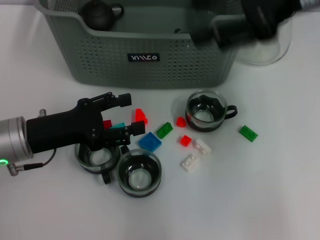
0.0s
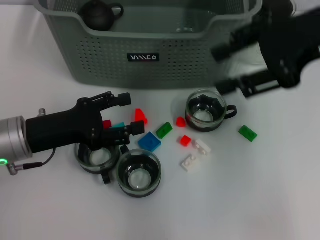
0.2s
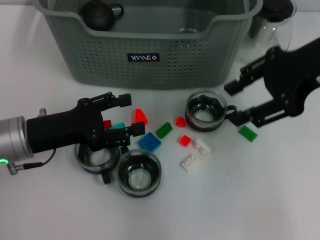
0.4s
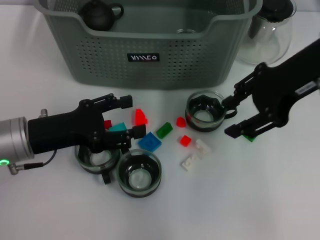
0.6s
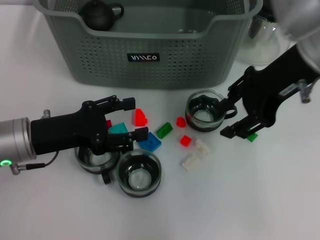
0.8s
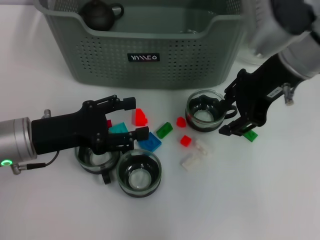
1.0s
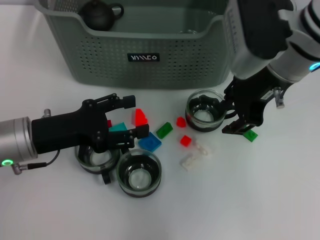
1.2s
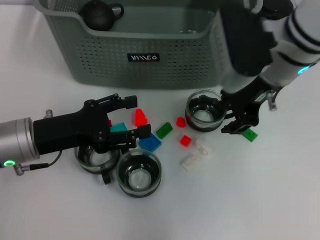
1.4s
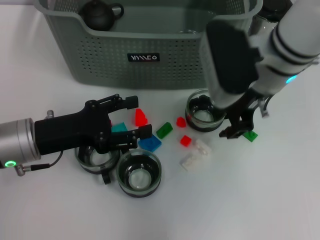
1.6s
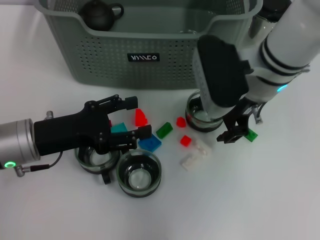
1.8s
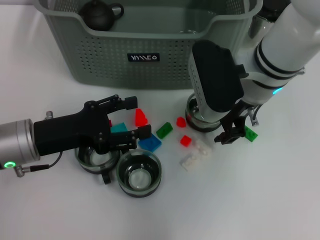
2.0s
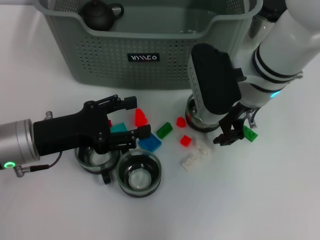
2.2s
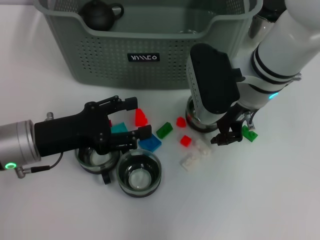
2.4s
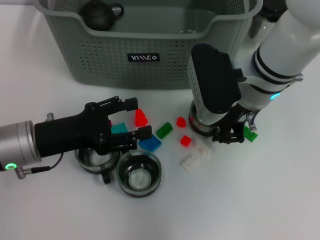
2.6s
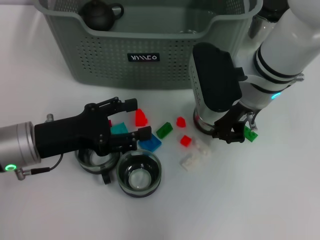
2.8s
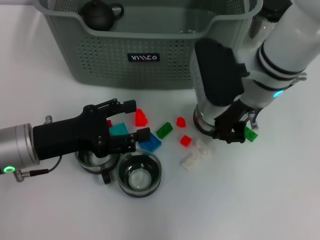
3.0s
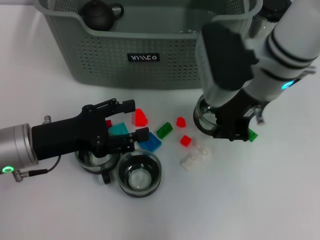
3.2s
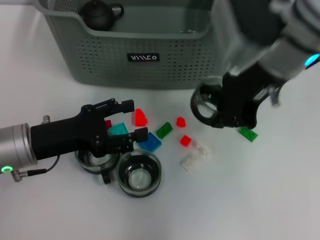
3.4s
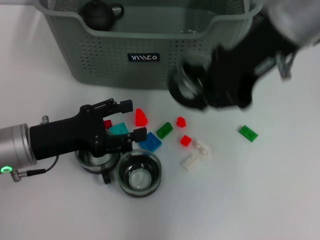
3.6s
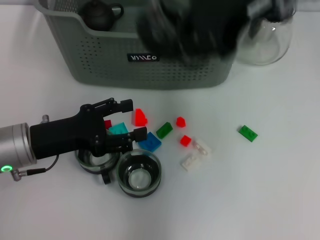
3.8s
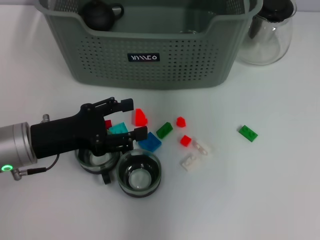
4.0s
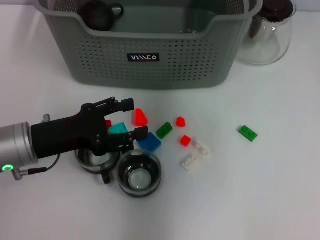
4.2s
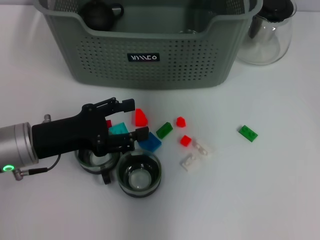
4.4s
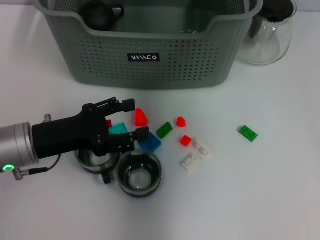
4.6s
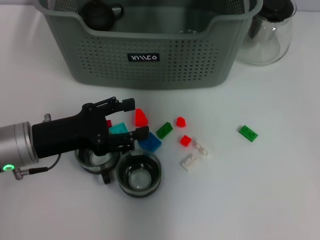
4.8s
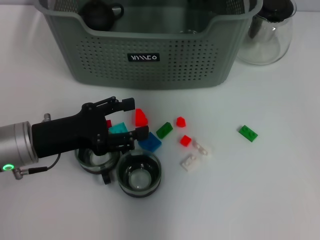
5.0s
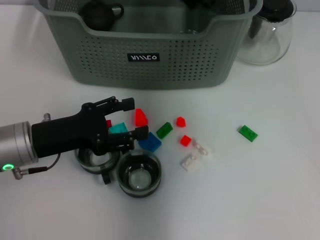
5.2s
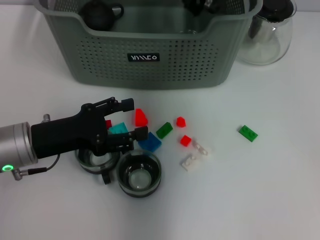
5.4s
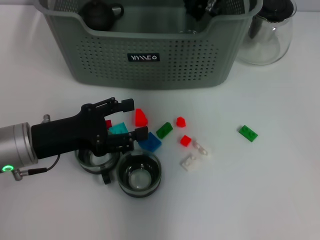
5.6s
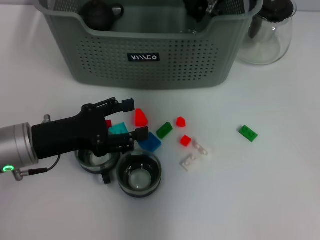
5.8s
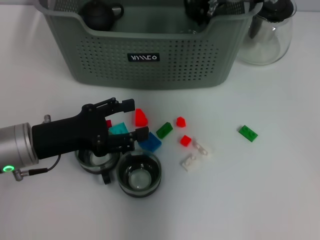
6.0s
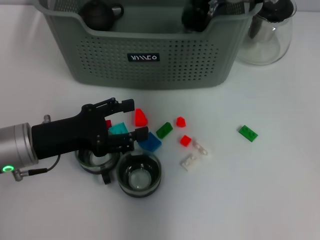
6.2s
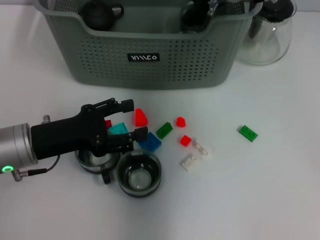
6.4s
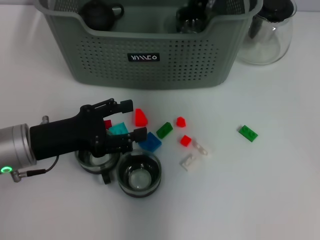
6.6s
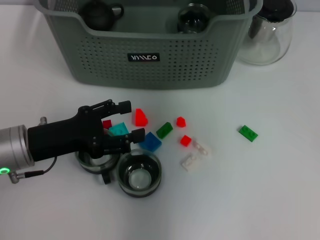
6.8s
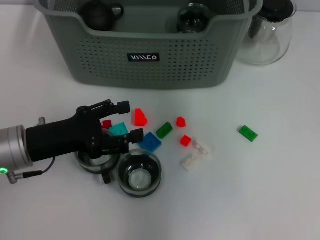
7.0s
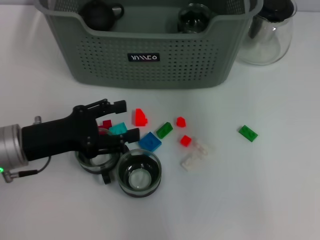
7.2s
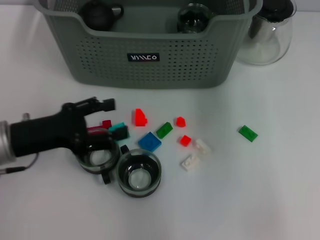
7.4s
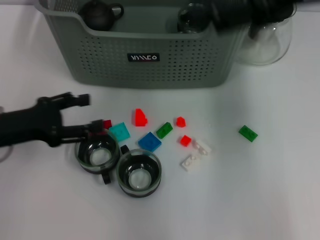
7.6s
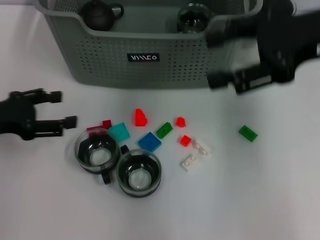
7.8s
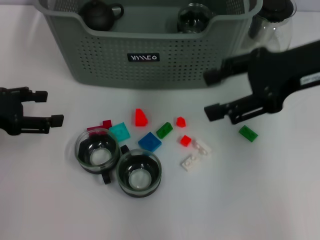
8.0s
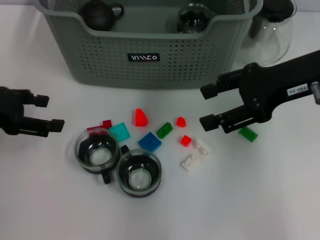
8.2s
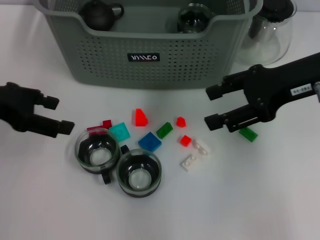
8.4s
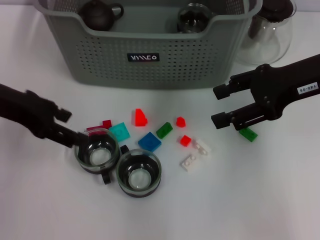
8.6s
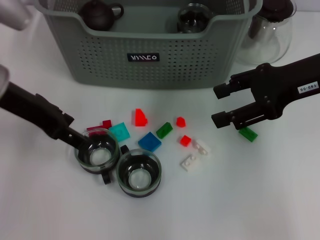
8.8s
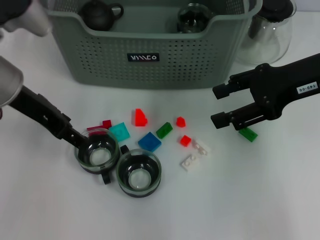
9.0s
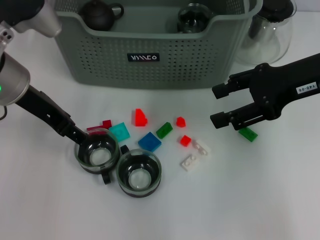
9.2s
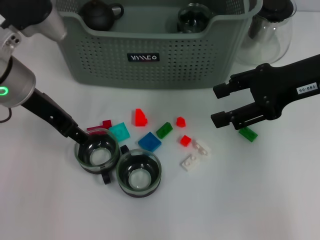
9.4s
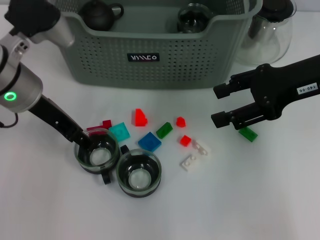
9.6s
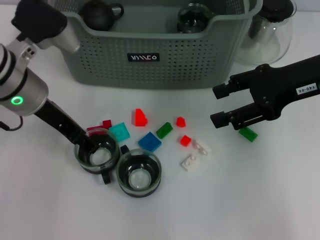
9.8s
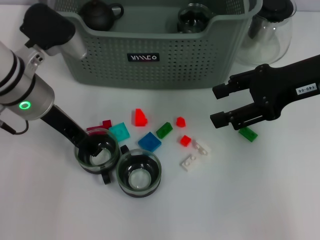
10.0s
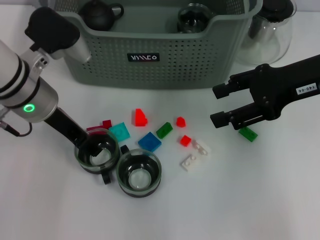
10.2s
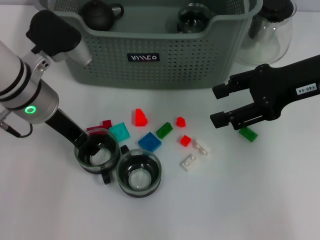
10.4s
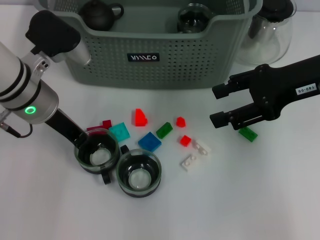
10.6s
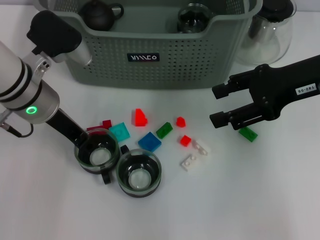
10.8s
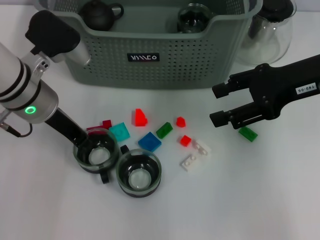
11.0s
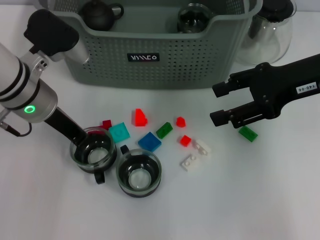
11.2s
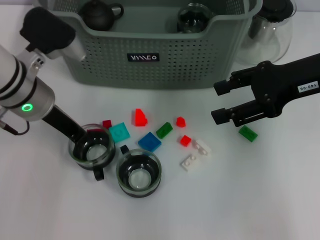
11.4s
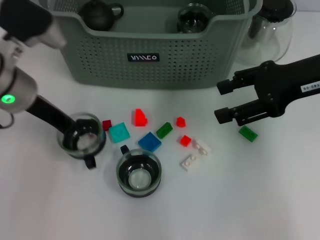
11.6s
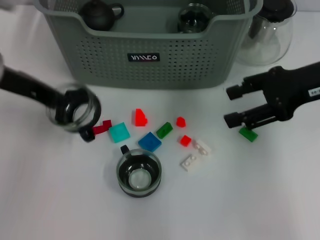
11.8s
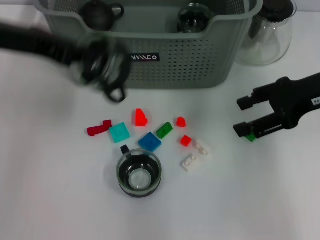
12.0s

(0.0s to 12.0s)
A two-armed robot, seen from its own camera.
Task of the whole recording: pick up the teacup on the table and place it into the storage bin, pick up the block on the table and place it into the storage bin.
Step, 0.0s - 2.6s: Grasp the cup with right gripper.
Step, 3.0s - 6.4s: Place the cup in the storage box with right gripper.
Step, 6.6s - 11.2s: Grasp the cup with left gripper.
0.0s - 1.6s: The right gripper heads downward and to the left, covering about 15 cm.
1.6s - 3.0s: The right gripper closes up.
3.0s - 4.4s: The right gripper moves upward and forward, roughly 20 cm.
6.0s - 7.6s: The right gripper travels backward, to the right and upward by some 20 cm, and opens its fingers. Meanwhile the left gripper heads to the left, covering approximately 5 cm.
7.6s - 9.0s: The right gripper moves downward, some 10 cm. The left gripper travels upward, to the right and forward by approximately 15 cm.
9.0s - 10.4s: The left gripper is displaced downward by approximately 5 cm.
10.4s - 12.0s: The left gripper travels upward by approximately 10 cm, and closes.

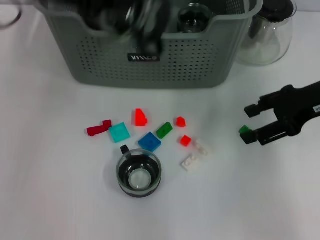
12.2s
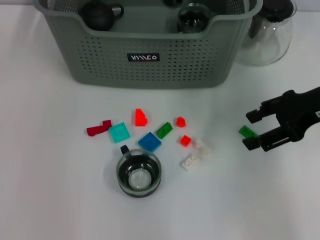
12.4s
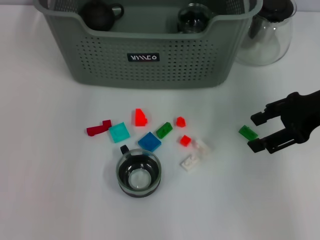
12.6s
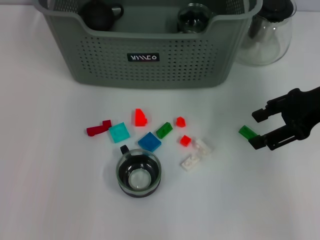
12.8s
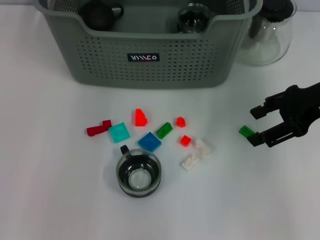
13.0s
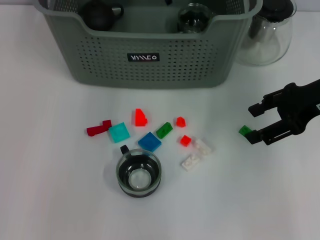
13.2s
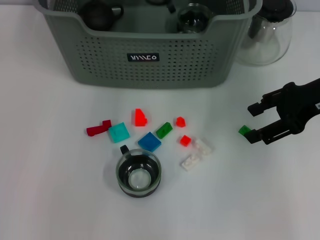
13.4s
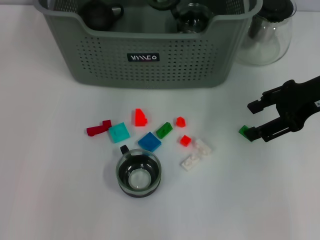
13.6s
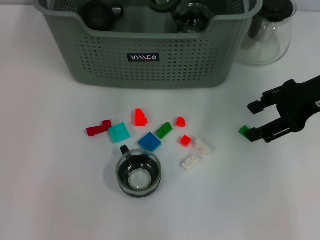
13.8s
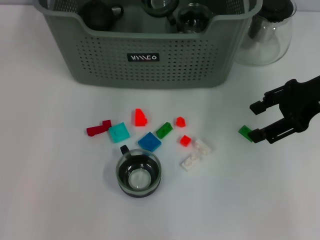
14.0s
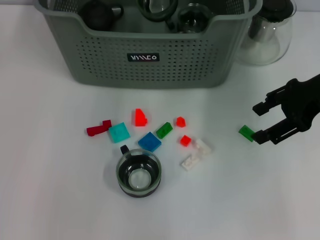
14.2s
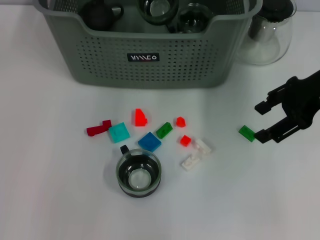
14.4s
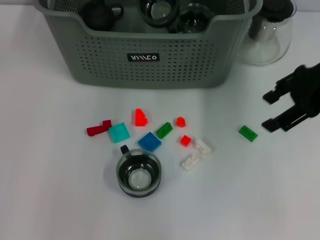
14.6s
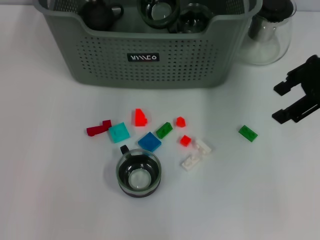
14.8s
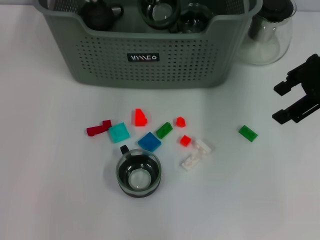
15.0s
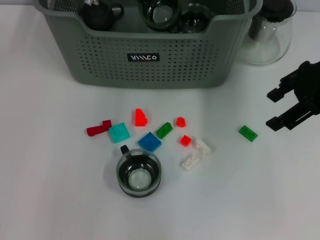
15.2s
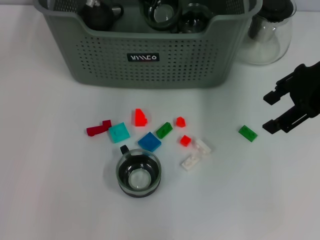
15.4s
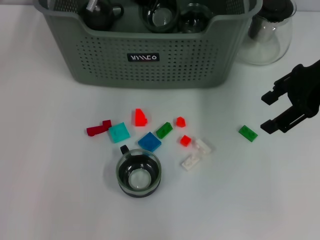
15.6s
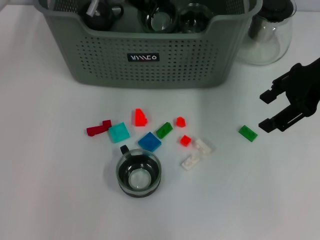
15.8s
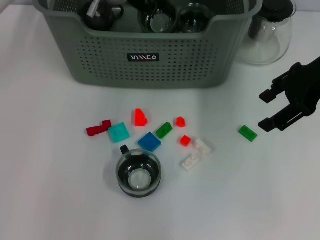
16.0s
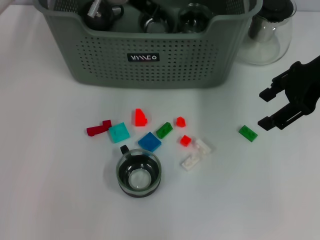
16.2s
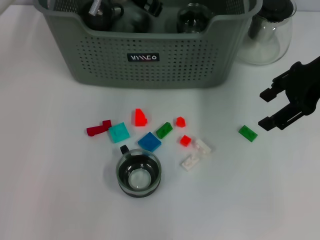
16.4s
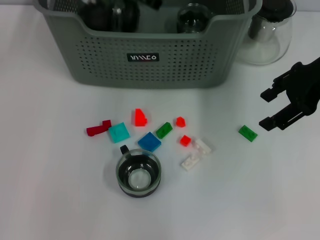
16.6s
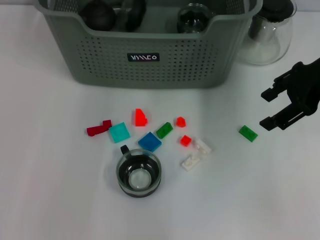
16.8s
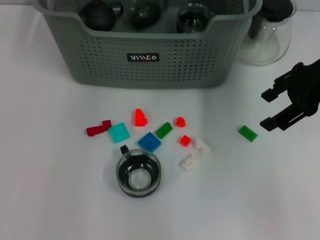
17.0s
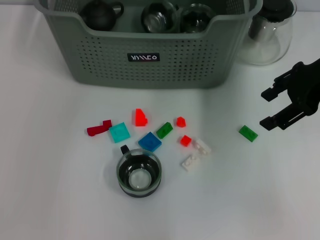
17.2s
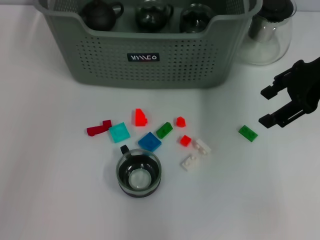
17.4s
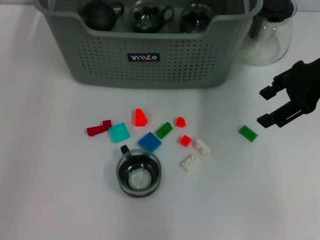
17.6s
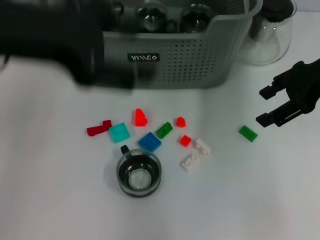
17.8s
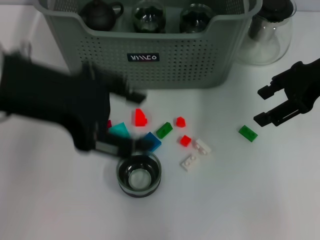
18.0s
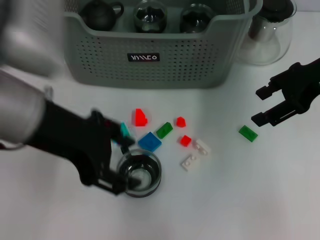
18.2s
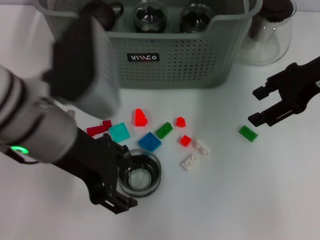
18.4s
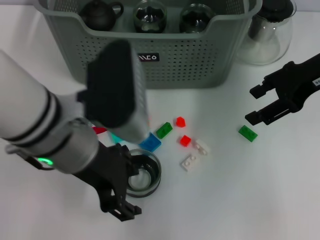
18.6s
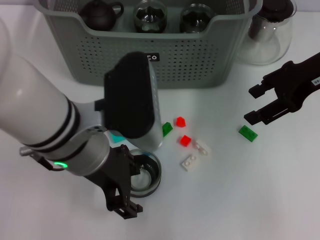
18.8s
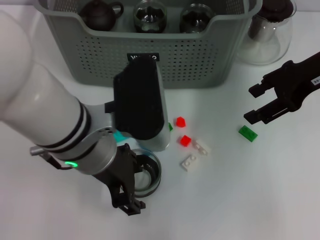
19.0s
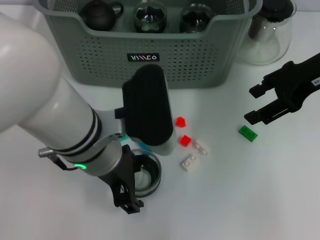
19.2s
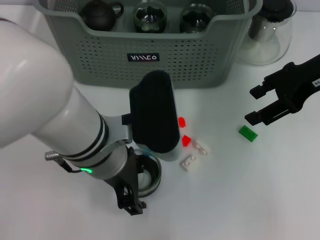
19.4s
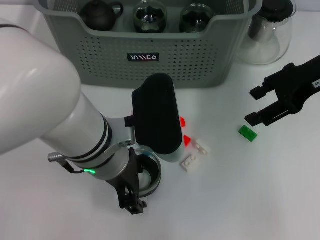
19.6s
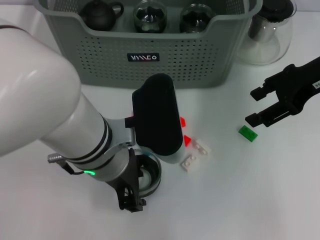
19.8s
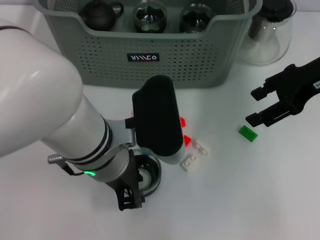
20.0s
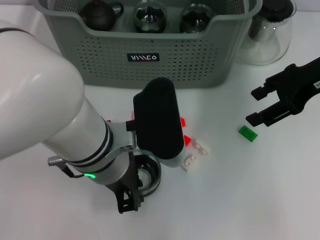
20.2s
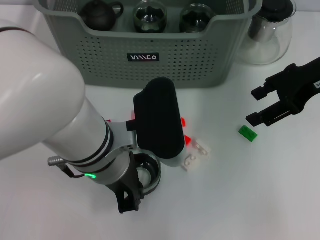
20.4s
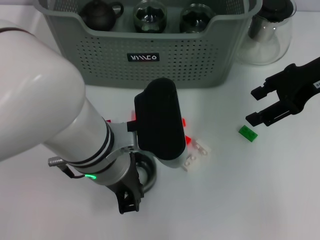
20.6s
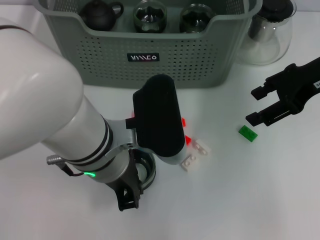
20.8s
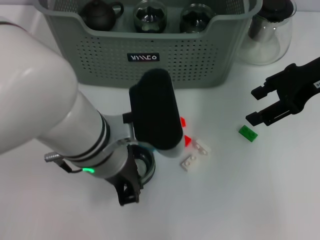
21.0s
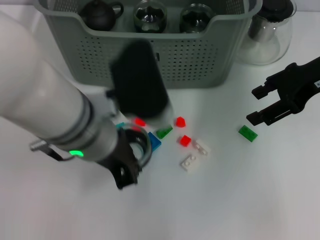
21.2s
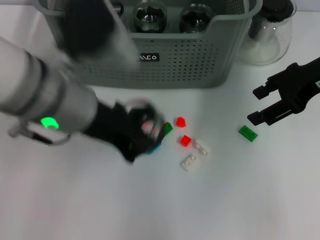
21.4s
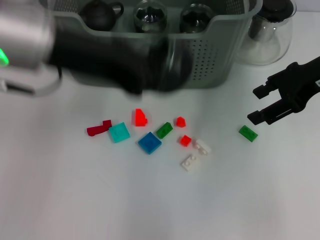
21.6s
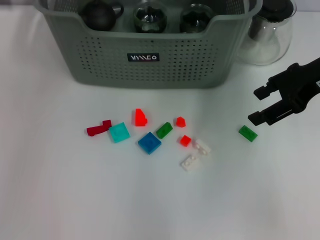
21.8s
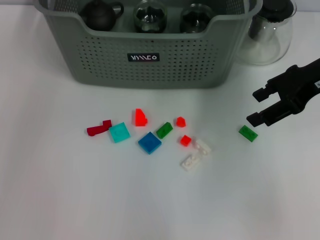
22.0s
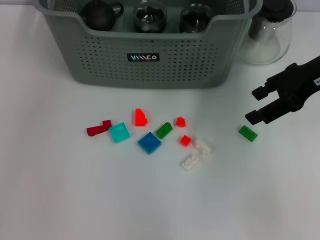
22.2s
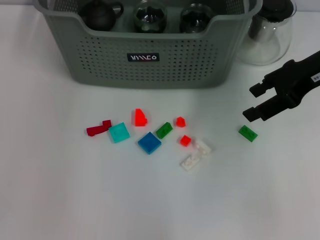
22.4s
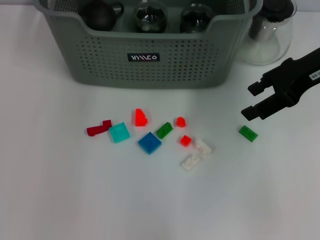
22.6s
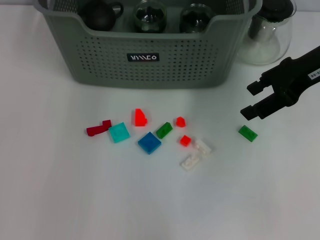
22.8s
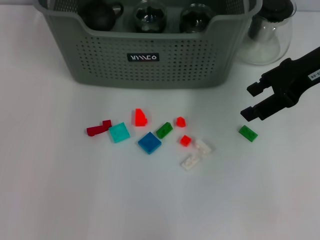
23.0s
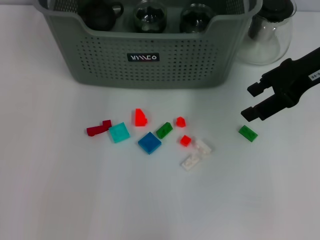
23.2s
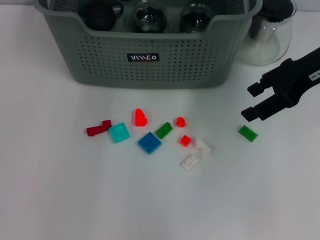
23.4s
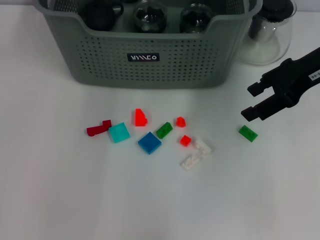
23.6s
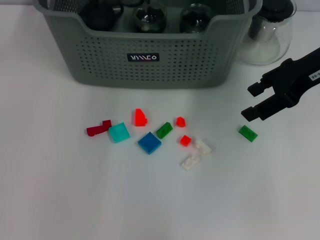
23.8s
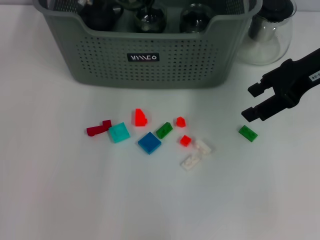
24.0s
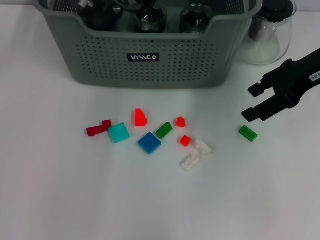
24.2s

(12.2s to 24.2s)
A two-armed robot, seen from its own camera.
Task of the whole recording: pick up the teacup on the table and place it into the storage bin, pick up the block on the table and place it into the storage bin.
Step, 12.2s - 16.2s: Place the cup in the storage box with left gripper.
Step, 16.4s - 20.4s: Grasp the cup with left gripper.
12.2s - 13.8s: The left gripper heads forward, to the right and downward, covering about 20 cm.
13.8s - 15.2s: There are only small adjustments of the grippers.
15.2s - 16.6s: The left gripper opens its fingers.
16.6s - 18.2s: The left gripper heads backward, covering about 20 cm, and opens.
18.2s - 19.8s: The left gripper travels to the right and downward by roughly 15 cm.
19.8s - 21.2s: The left gripper closes its fingers.
21.2s - 22.6s: The left gripper travels forward and upward by some 25 cm.
